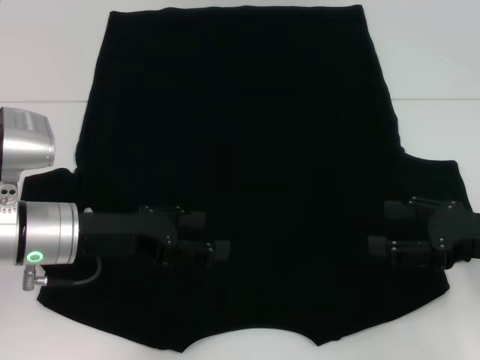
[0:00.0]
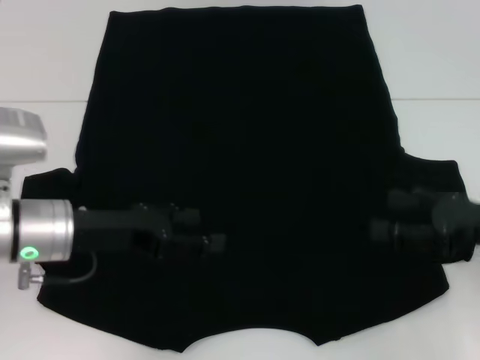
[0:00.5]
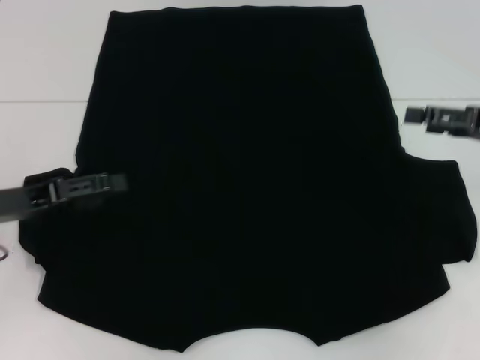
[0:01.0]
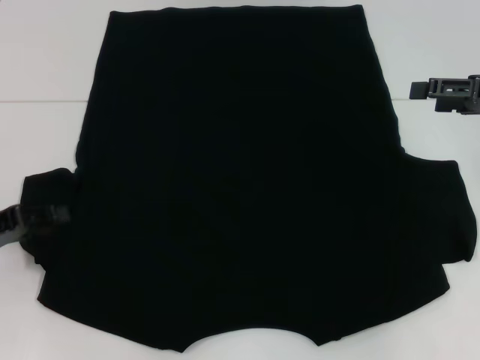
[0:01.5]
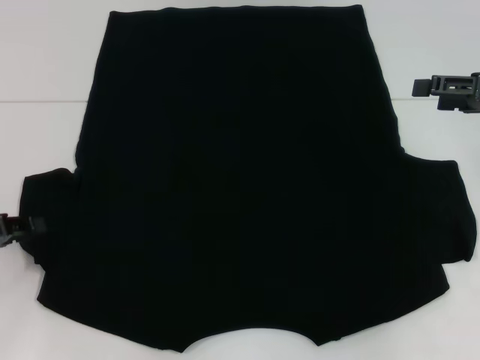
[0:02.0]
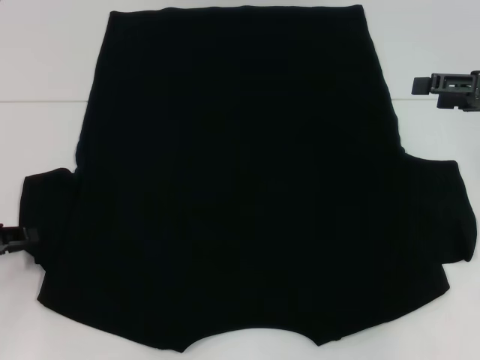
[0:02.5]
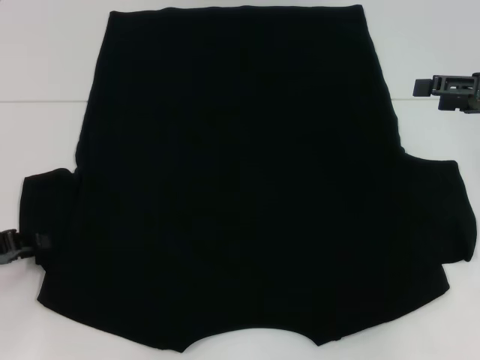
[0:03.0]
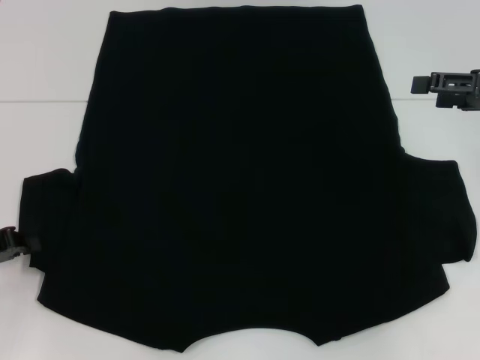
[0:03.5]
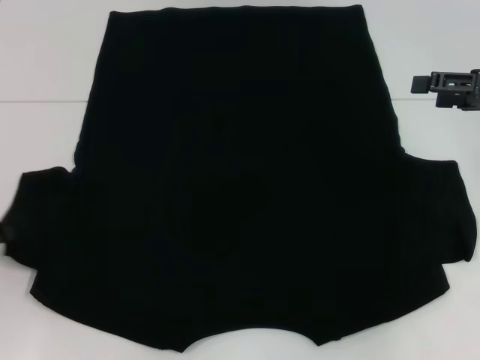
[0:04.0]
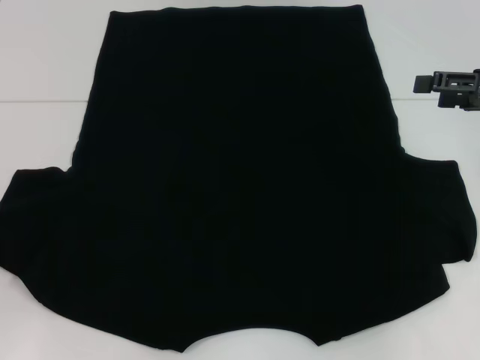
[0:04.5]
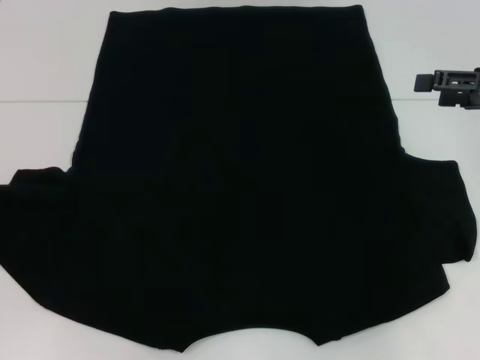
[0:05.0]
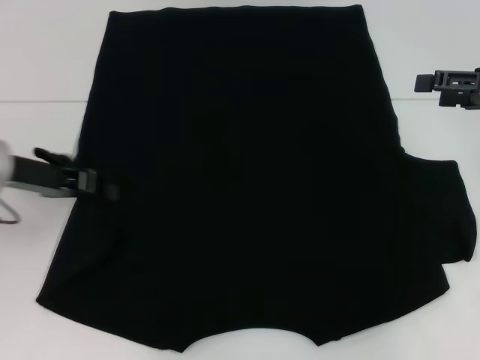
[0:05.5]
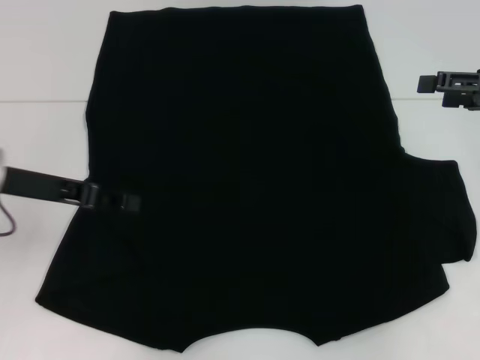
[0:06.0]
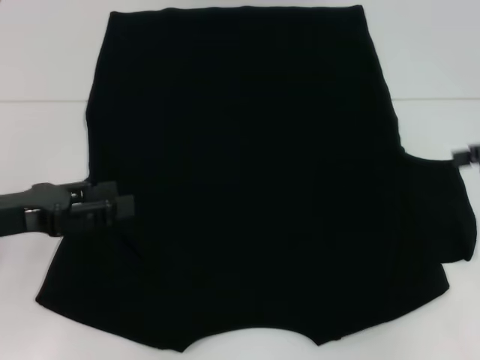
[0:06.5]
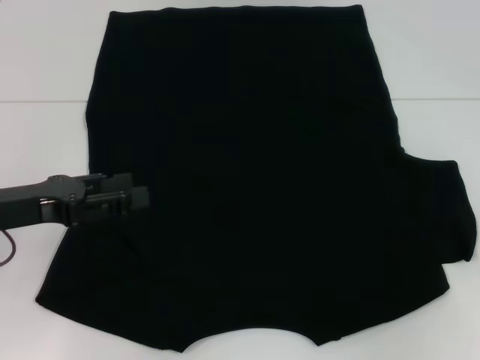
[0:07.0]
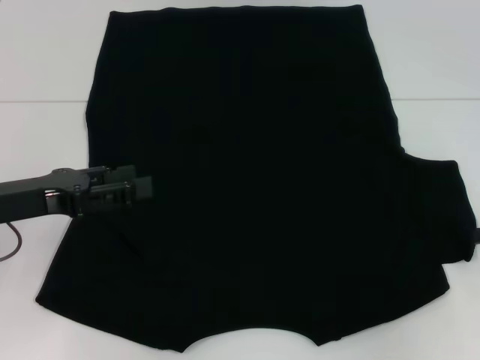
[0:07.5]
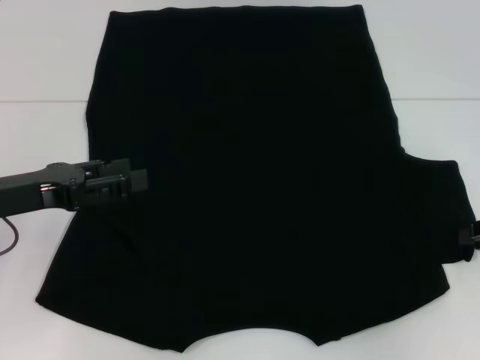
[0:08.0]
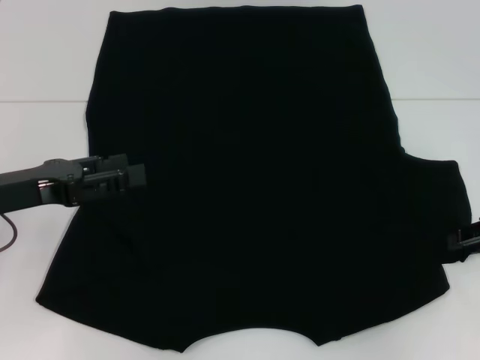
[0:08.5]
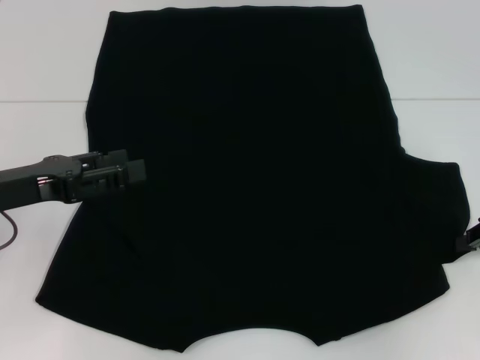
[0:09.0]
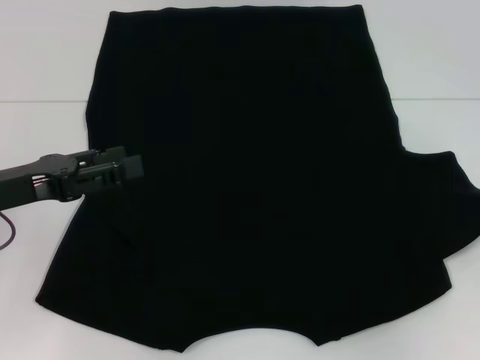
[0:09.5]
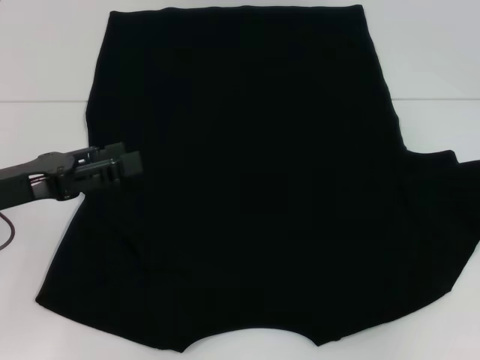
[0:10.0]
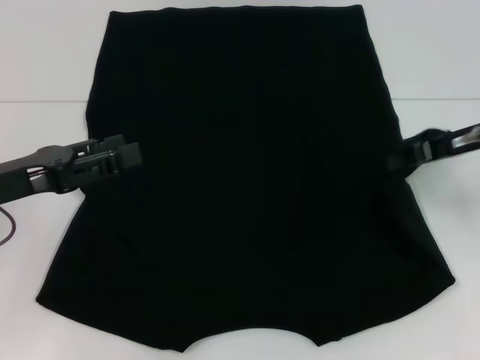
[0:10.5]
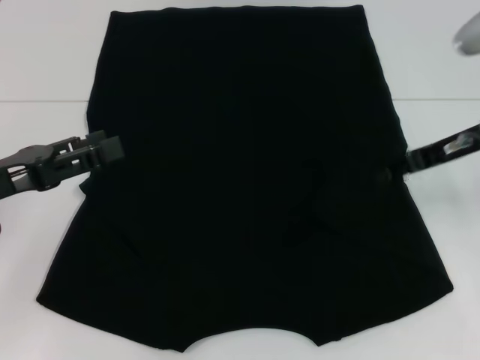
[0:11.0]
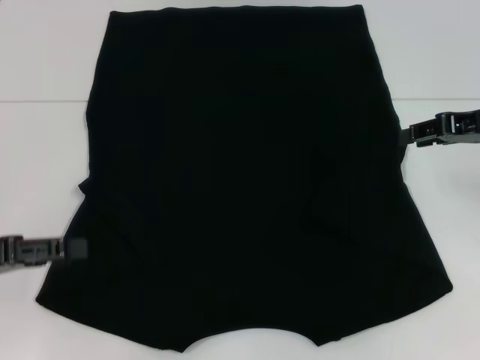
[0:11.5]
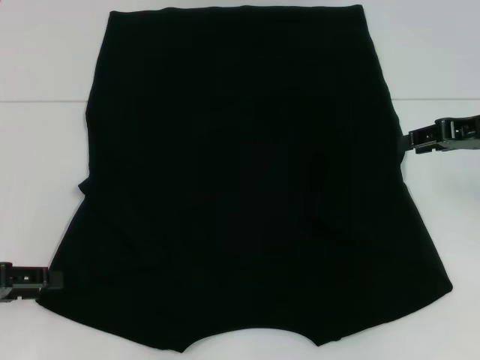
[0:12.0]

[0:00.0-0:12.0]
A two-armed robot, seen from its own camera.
Step, 0:00.0 to 0:06.0: Fold the bottom left sleeve with your left hand.
Step, 0:06.5 to 0:11.0: Fold the bottom right sleeve with your right hand.
0:00.0 to 0:02.0: The right gripper shifts roughly 15 cm forward and upward. Meanwhile the left gripper moves to the left, about 15 cm, and closes its fingers.
0:02.0 to 0:04.0: The left gripper closes.
0:04.0 to 0:06.0: The left gripper shifts roughly 15 cm to the right, upward and forward.
0:06.0 to 0:08.0: The left gripper changes place by some 5 cm, and opens. The right gripper moves downward and backward, roughly 10 cm, and closes up.
0:08.0 to 0:10.0: The right gripper changes place by some 5 cm, and closes its fingers.
0:10.0 to 0:12.0: Both grippers travel together to the left, roughly 5 cm. The right gripper opens up.

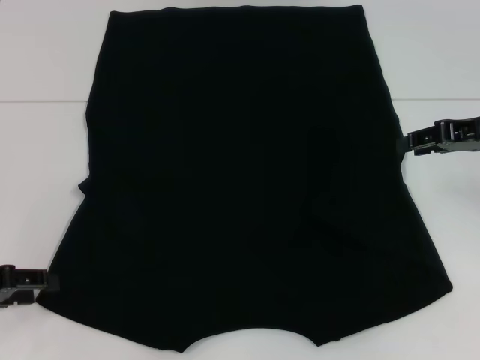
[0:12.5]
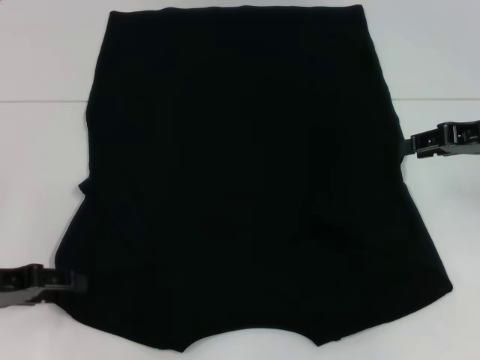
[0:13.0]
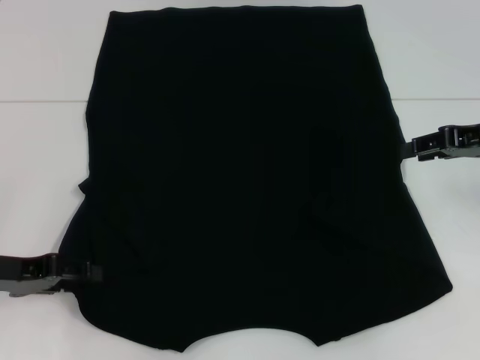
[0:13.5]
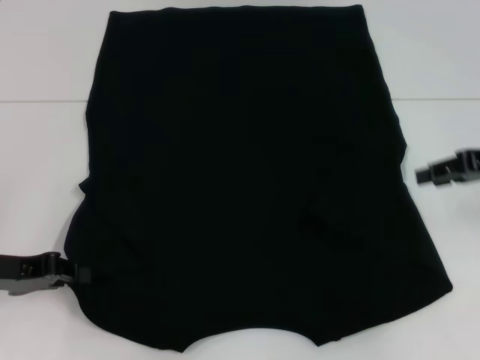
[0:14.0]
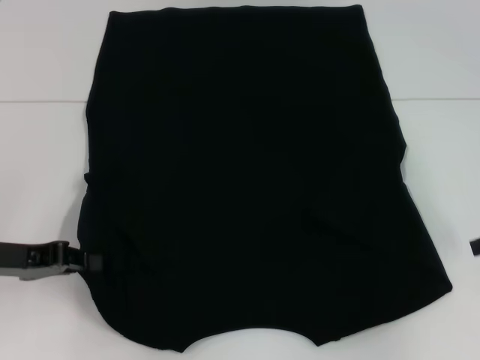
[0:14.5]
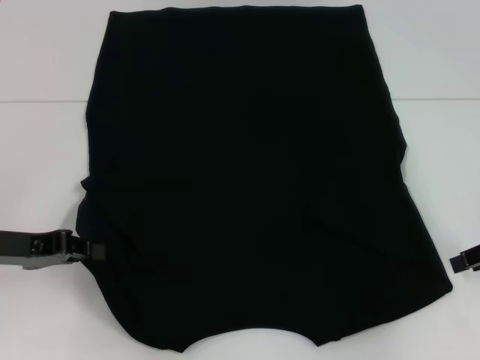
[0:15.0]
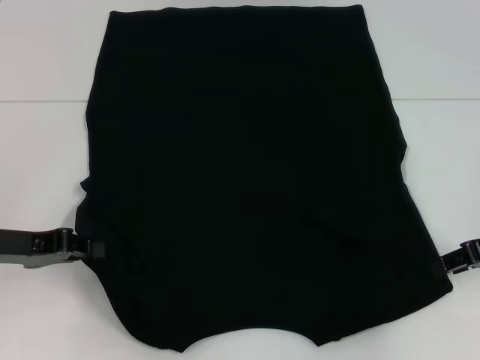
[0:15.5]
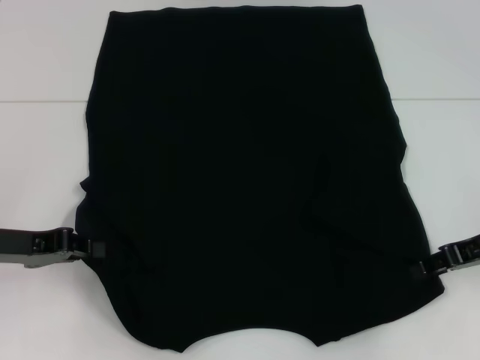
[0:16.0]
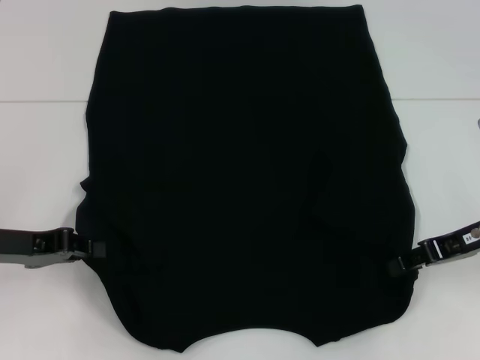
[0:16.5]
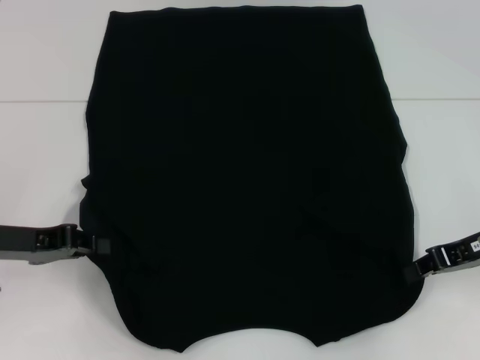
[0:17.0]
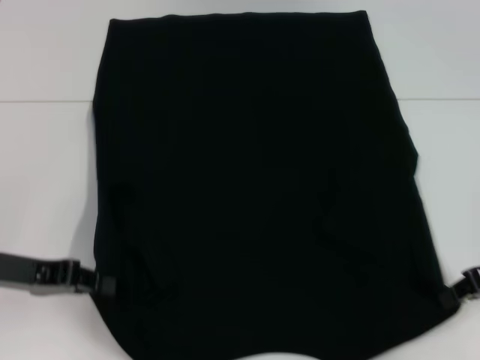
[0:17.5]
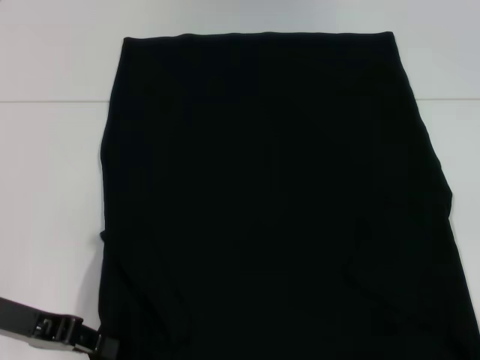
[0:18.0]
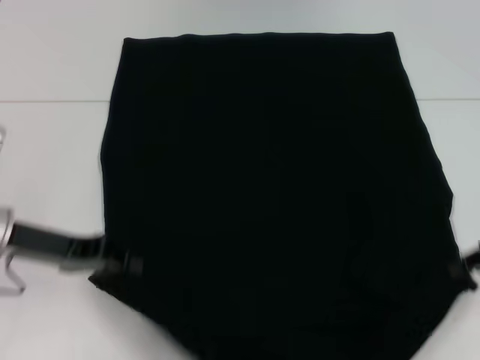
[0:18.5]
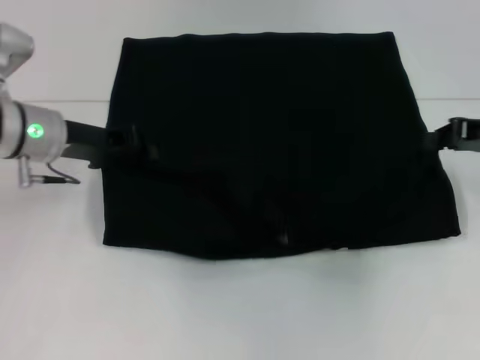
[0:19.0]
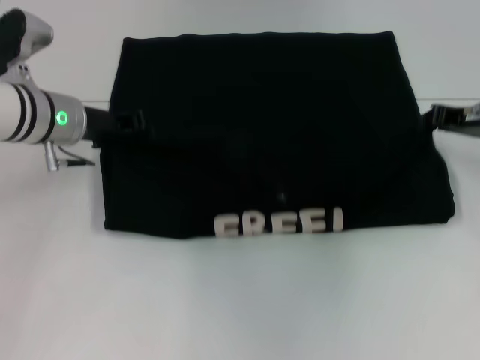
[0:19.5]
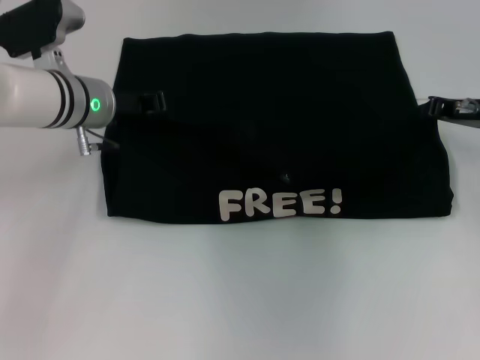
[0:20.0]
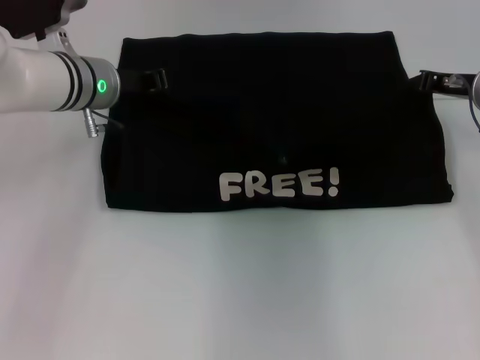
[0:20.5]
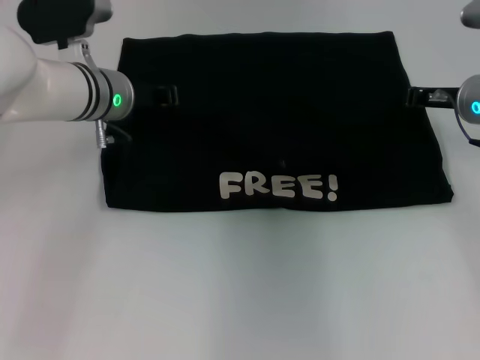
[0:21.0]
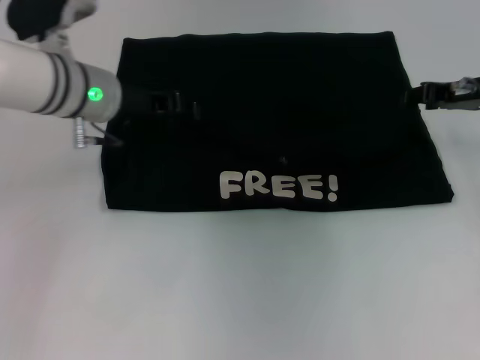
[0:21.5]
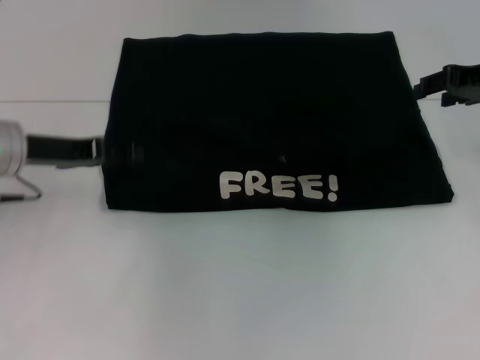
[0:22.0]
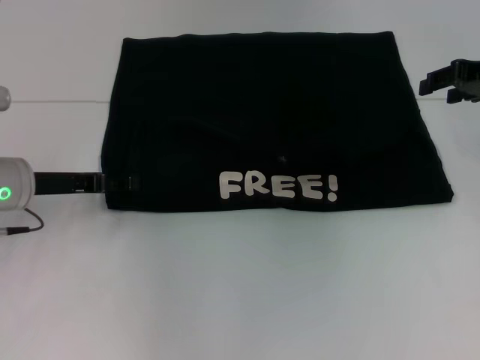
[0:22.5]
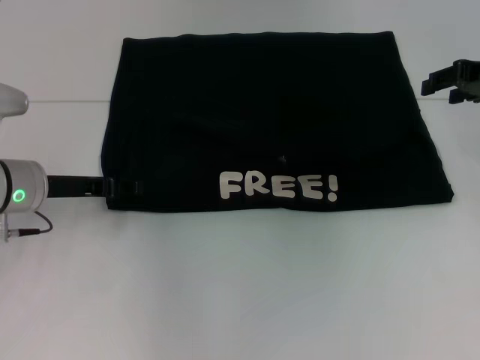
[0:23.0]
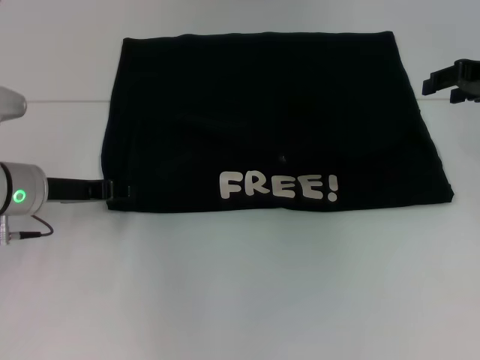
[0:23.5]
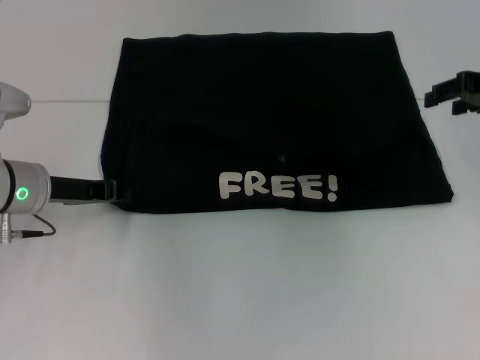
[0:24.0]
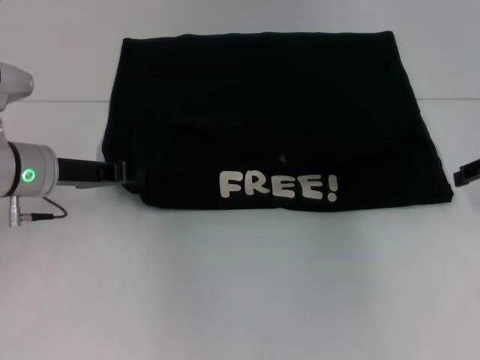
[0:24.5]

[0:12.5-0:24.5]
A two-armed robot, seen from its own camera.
Step, 0:14.5 to 0:16.5: Grab the bottom right corner with your right hand.
Step, 0:17.0 to 0:21.5: Fold the clothes with your left hand.
Step, 0:17.0 to 0:21.5: Fold the clothes with your right hand.
0:12.5 to 0:14.5: The left gripper moves some 5 cm, and closes; the right gripper heads backward and to the right, covering approximately 10 cm.
0:14.5 to 0:16.5: The right gripper travels to the left by about 10 cm.
0:16.5 to 0:18.5: The right gripper moves to the right, approximately 5 cm, and closes up.
0:18.5 to 0:20.5: The left gripper heads forward and to the right, covering about 15 cm, while the right gripper goes approximately 15 cm forward and to the left.
0:20.5 to 0:22.5: The right gripper goes some 5 cm upward, and opens its fingers. The left gripper moves backward, to the left and downward, about 15 cm, and opens its fingers.
0:22.5 to 0:24.5: The left gripper closes. The right gripper moves some 5 cm.

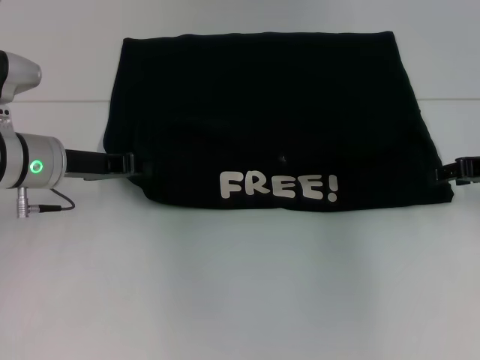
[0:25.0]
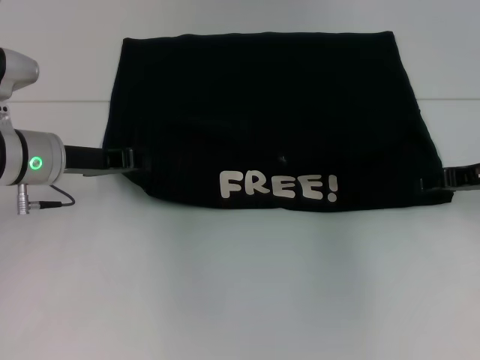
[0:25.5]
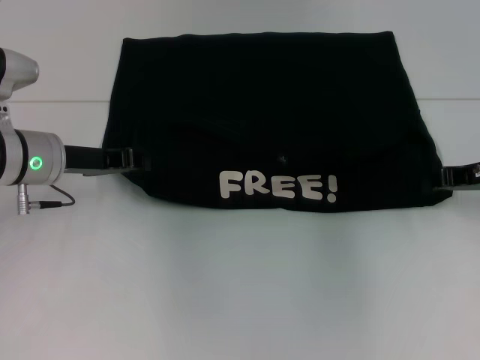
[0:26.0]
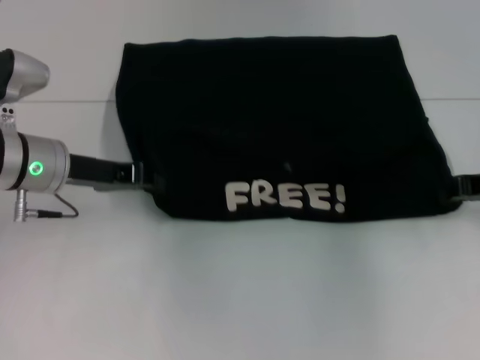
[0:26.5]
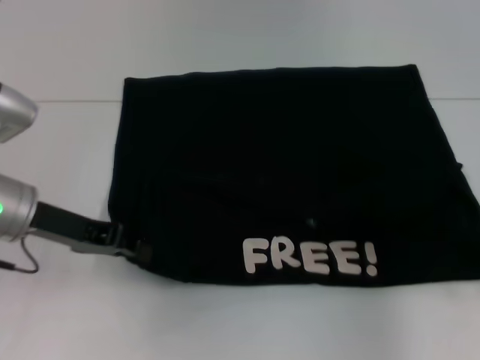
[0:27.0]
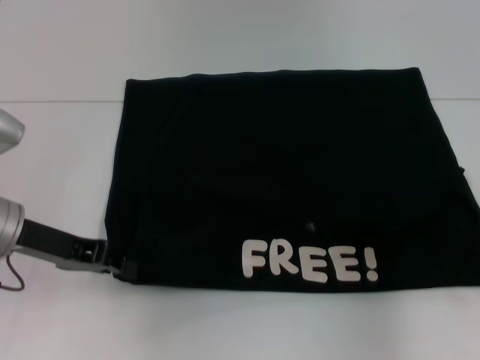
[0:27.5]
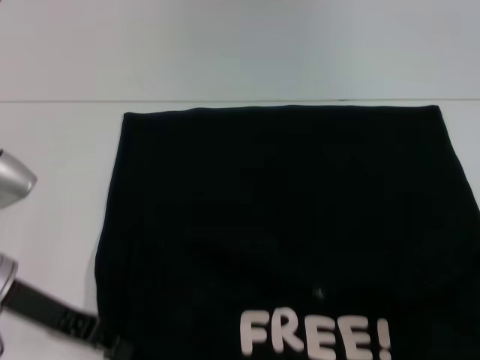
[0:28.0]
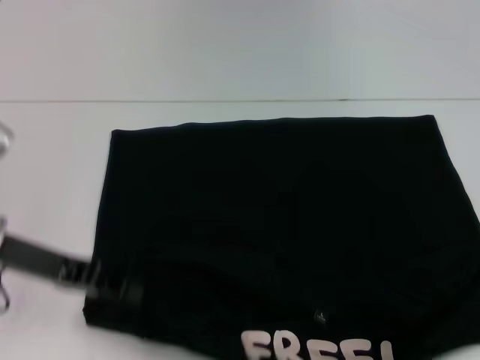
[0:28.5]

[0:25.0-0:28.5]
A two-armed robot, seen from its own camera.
Step, 0:25.0 to 0:28.0: Pull the clothes with your left hand.
Step, 0:25.0 to 0:28.0: Pull the clothes with your right hand.
0:25.0 to 0:27.0: Both grippers travel together backward, roughly 5 cm. The right gripper closes.
